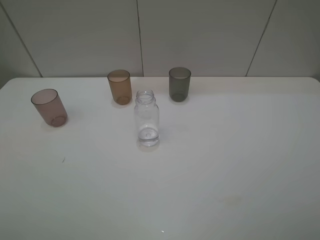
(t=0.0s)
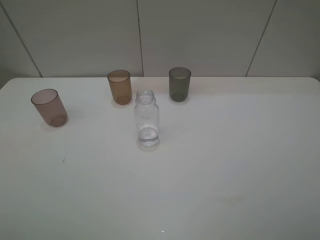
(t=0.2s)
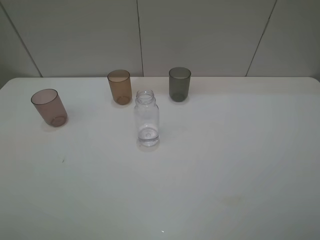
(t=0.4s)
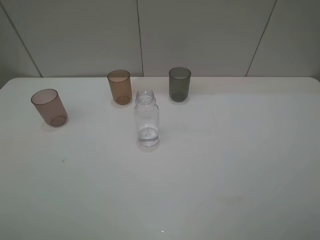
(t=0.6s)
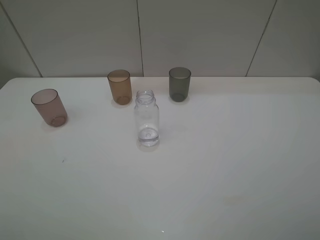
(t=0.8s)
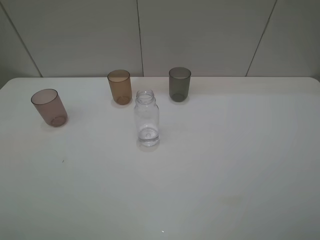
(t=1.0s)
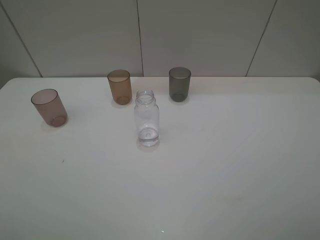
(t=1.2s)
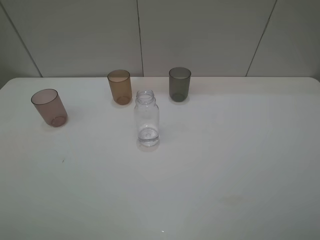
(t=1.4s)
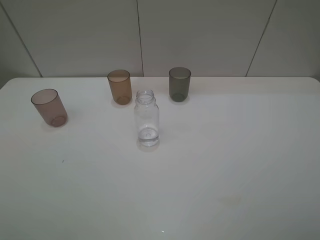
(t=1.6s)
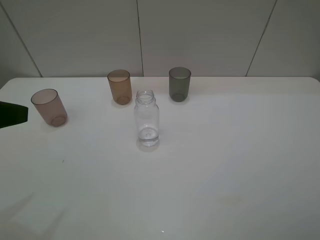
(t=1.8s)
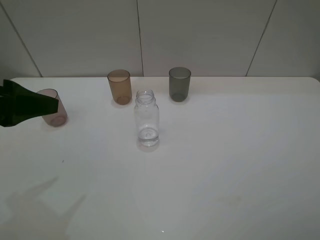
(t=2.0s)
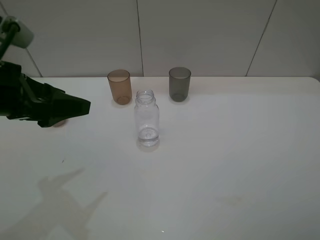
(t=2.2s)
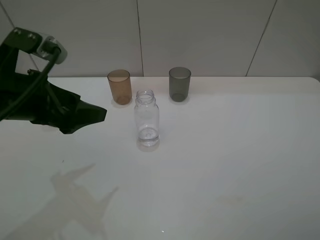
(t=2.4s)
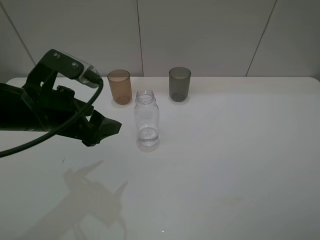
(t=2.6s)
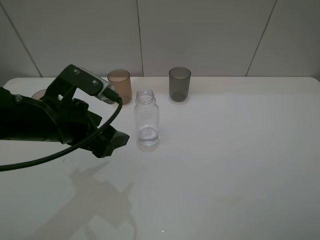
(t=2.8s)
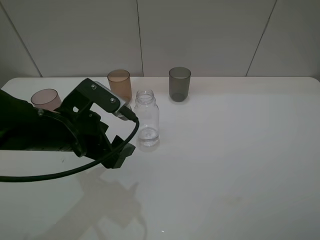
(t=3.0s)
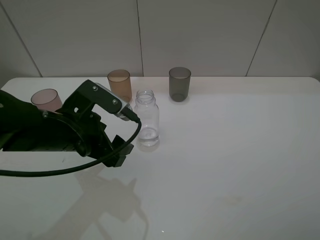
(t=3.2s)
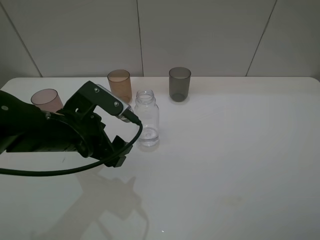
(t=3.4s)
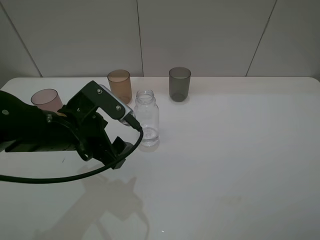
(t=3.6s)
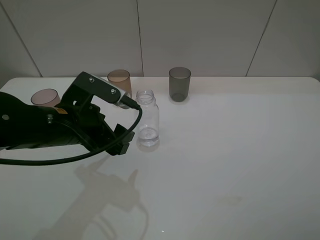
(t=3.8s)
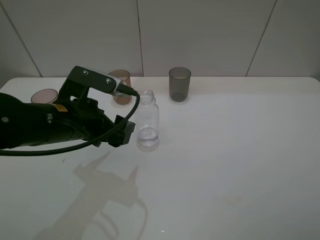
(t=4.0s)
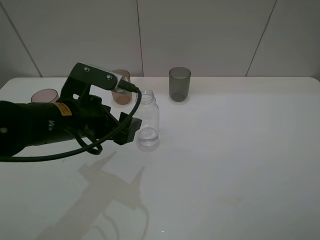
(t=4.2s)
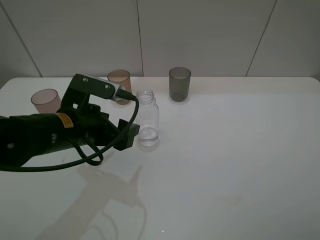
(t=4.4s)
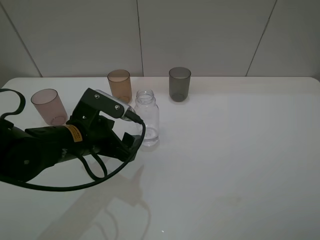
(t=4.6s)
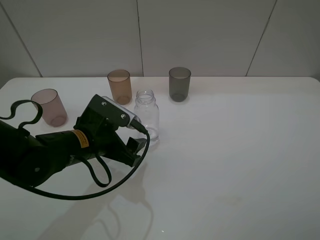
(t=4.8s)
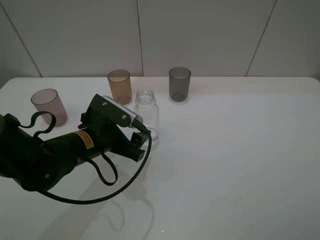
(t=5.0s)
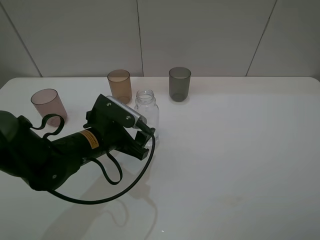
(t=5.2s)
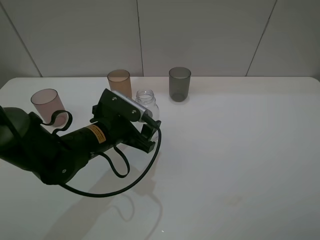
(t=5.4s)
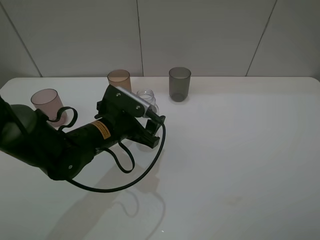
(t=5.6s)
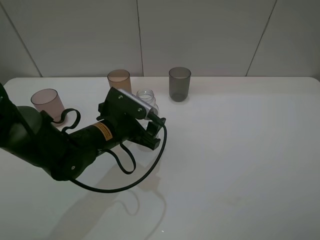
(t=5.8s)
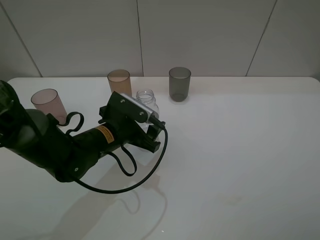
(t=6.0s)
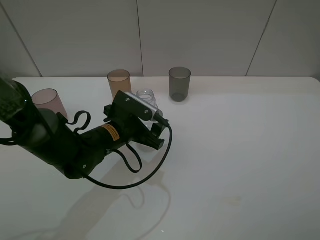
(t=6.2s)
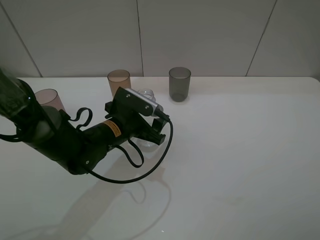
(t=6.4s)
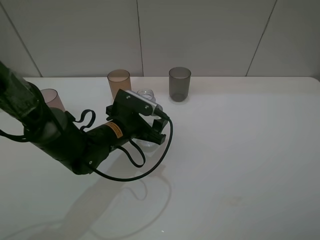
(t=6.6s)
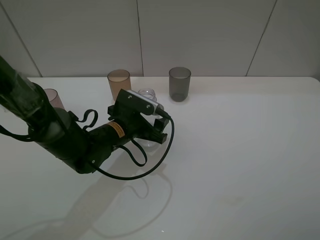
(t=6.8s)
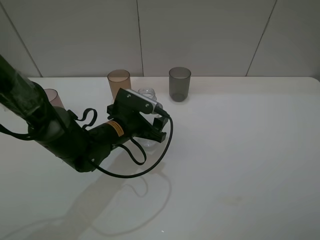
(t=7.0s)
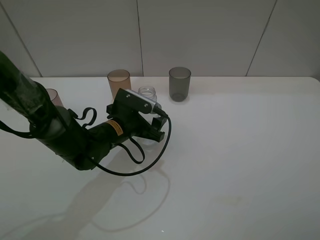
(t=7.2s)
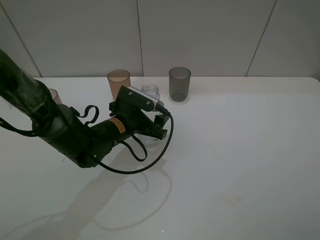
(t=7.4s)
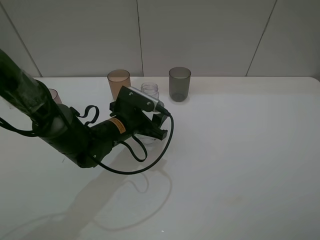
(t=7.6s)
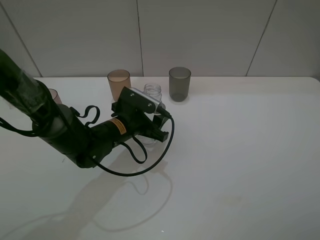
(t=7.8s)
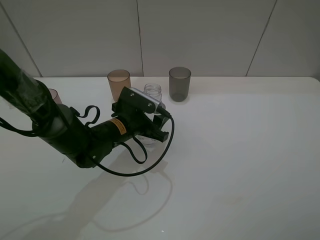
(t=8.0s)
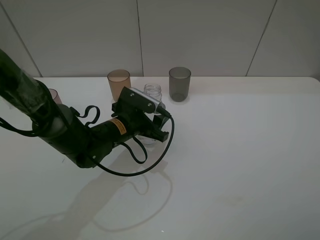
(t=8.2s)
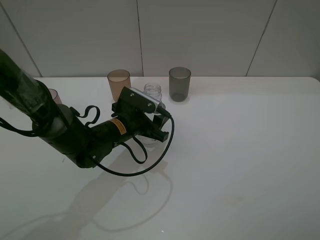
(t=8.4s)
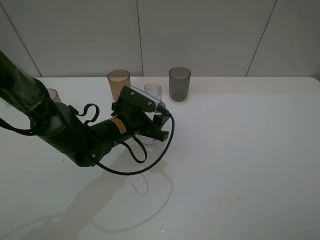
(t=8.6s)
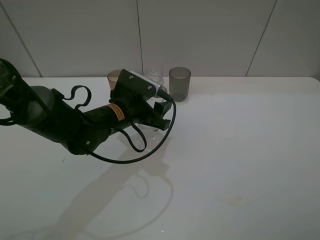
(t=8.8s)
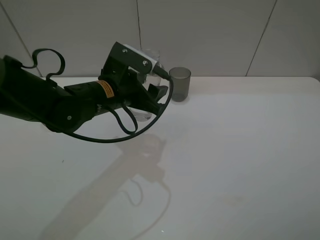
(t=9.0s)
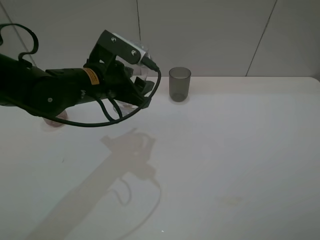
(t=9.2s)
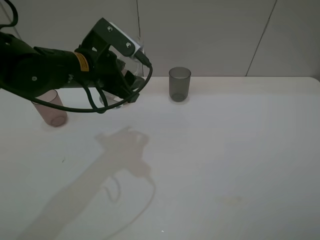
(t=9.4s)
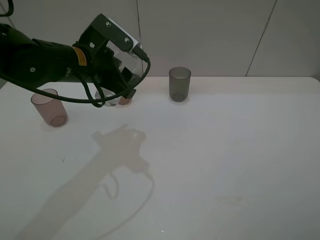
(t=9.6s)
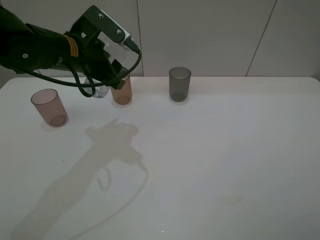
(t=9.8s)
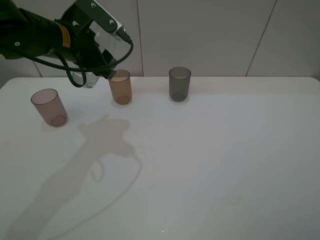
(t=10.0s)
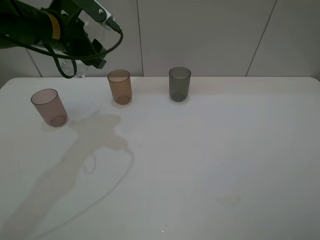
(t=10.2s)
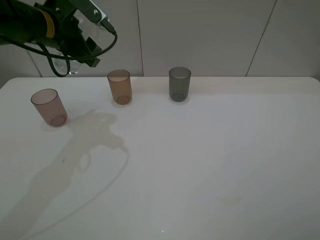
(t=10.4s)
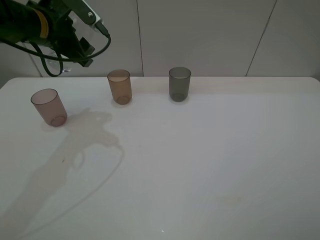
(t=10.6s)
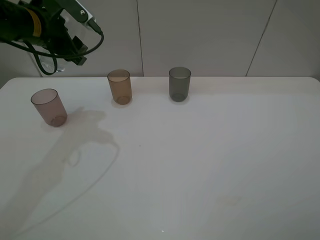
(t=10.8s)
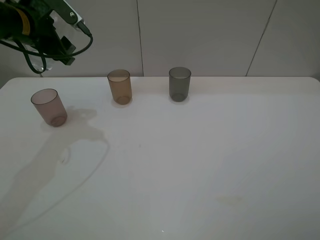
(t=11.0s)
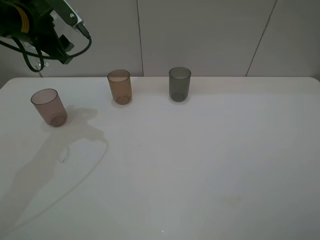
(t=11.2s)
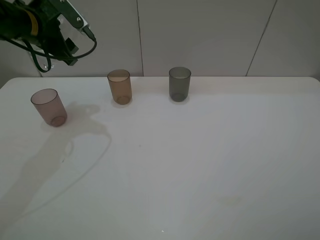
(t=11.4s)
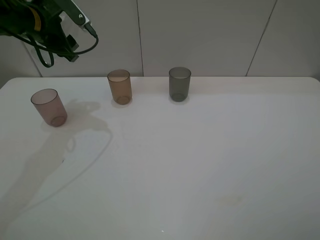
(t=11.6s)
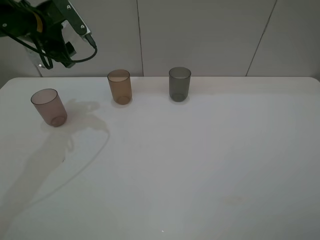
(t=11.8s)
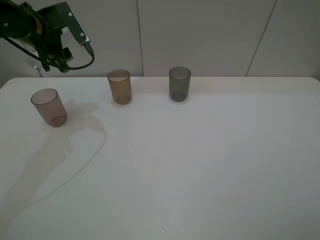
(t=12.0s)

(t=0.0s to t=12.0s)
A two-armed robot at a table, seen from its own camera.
Task of the whole recording: pick up the bottle filled with water and pour water into the middle cup of the three cups.
Step, t=0.0s - t=6.8s: Grasp the transparent bottle with the left gripper.
t=1.6s - t=3.0s: The left gripper travels to the right, forward and downward by roughly 25 cm.
t=3.0s - t=4.4s: There are only small adjustments of the grippers.
t=4.4s - t=6.0s: The left gripper shifts roughly 5 cm downward.
t=6.0s - t=7.6s: The left gripper closes up.
t=7.6s - t=9.0s: The left gripper is displaced upward by some 10 cm.
t=9.0s - t=10.4s: The left gripper is displaced to the left, upward and forward by approximately 15 cm.
t=10.4s - t=12.0s: The left gripper moves to the left, roughly 5 cm.

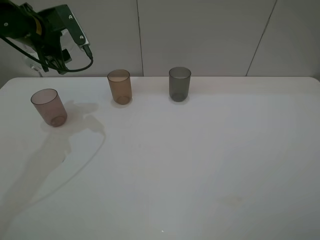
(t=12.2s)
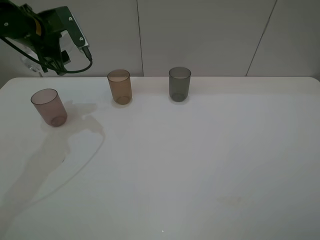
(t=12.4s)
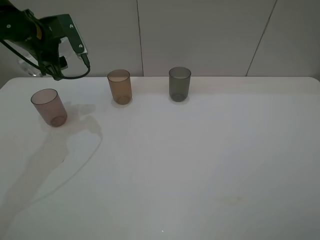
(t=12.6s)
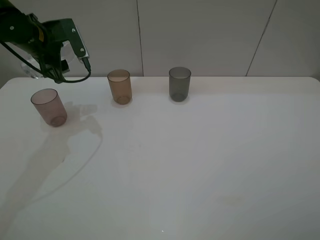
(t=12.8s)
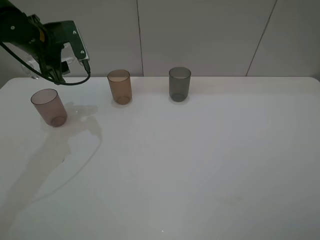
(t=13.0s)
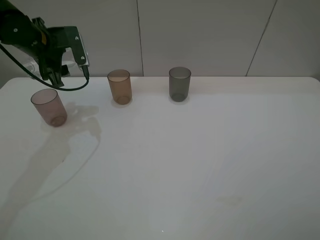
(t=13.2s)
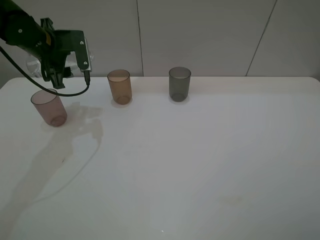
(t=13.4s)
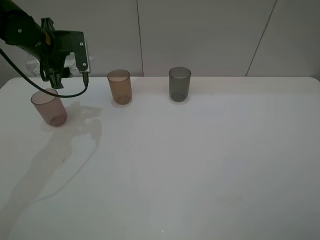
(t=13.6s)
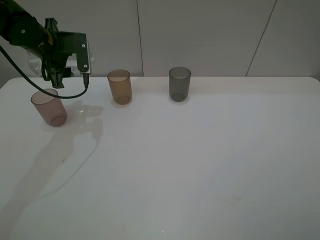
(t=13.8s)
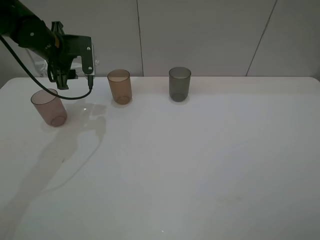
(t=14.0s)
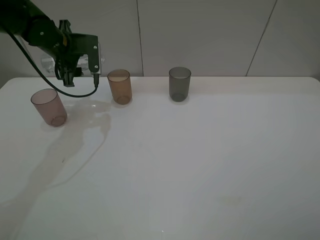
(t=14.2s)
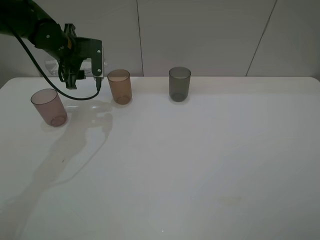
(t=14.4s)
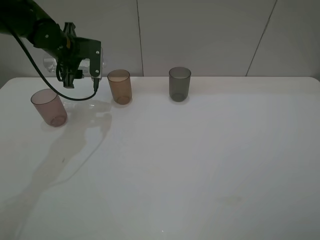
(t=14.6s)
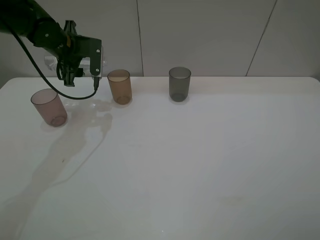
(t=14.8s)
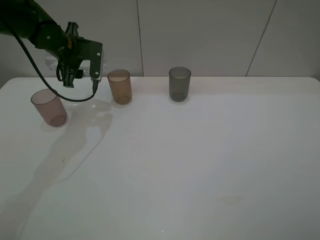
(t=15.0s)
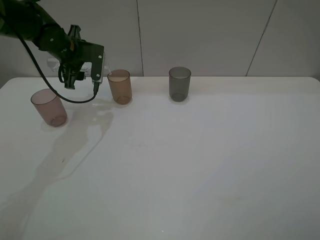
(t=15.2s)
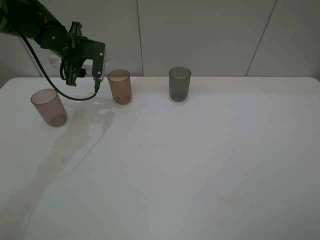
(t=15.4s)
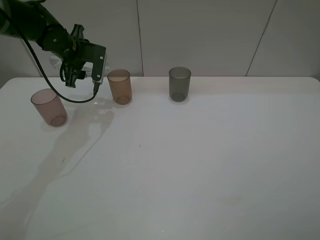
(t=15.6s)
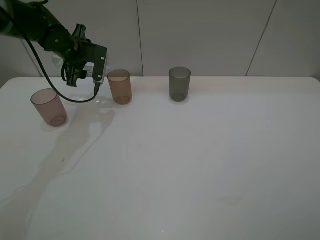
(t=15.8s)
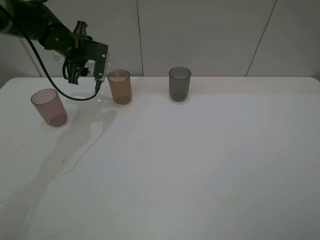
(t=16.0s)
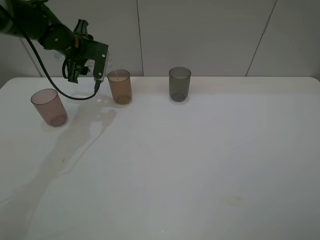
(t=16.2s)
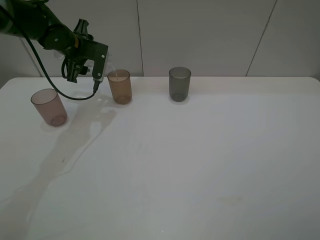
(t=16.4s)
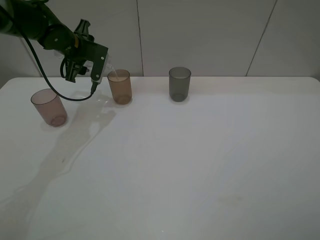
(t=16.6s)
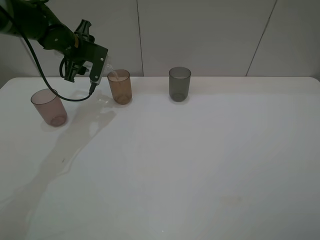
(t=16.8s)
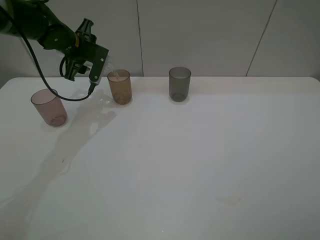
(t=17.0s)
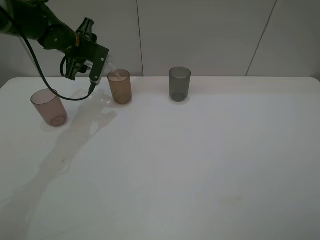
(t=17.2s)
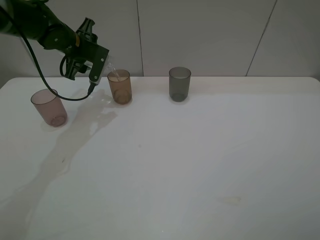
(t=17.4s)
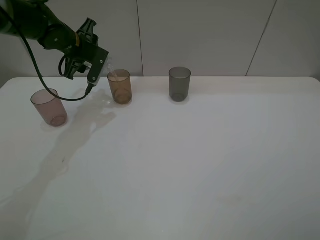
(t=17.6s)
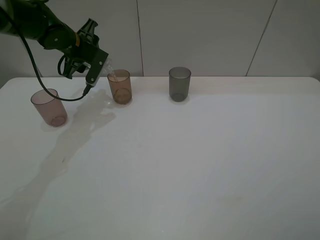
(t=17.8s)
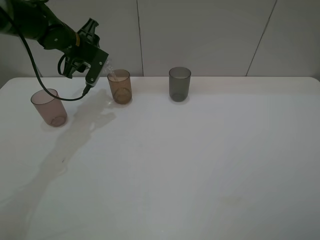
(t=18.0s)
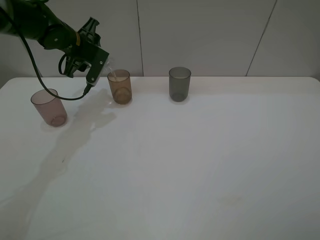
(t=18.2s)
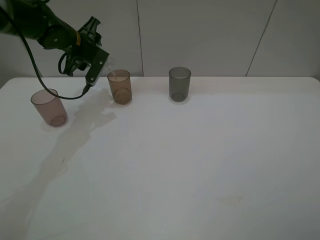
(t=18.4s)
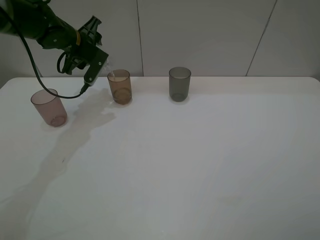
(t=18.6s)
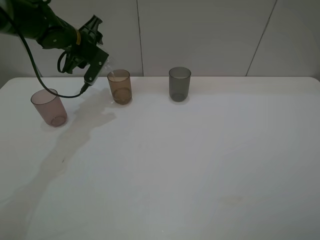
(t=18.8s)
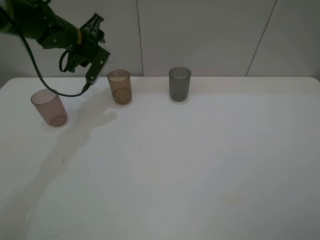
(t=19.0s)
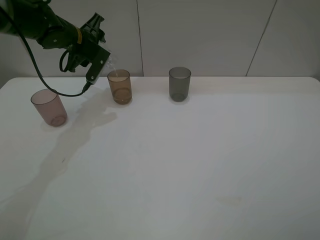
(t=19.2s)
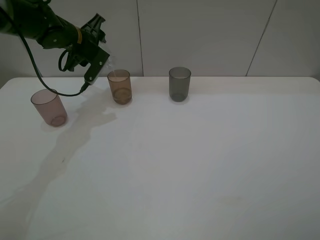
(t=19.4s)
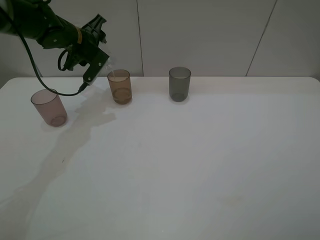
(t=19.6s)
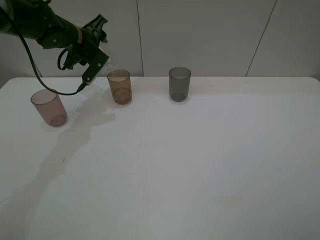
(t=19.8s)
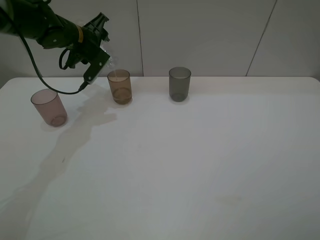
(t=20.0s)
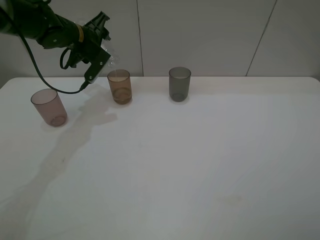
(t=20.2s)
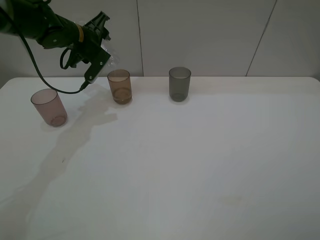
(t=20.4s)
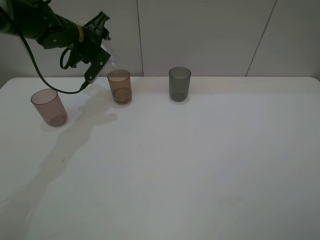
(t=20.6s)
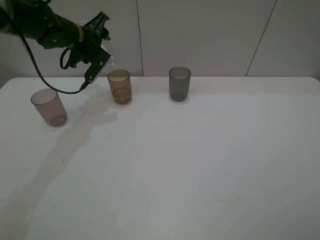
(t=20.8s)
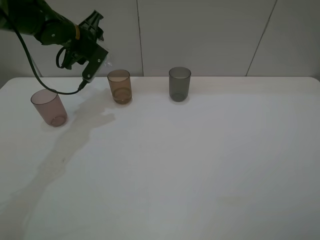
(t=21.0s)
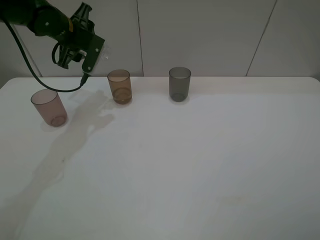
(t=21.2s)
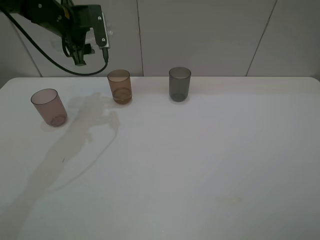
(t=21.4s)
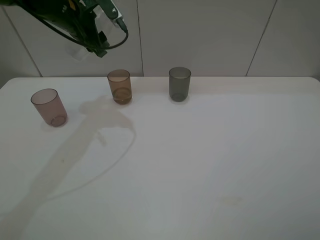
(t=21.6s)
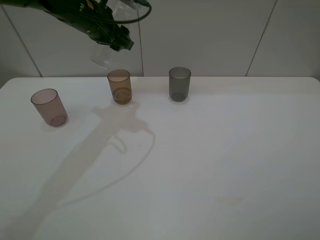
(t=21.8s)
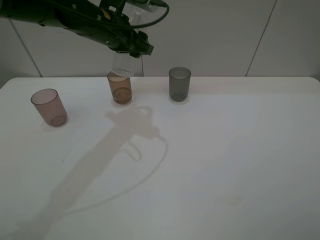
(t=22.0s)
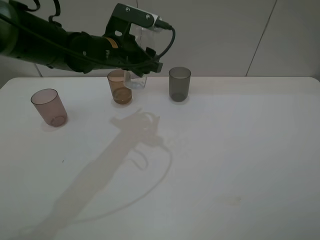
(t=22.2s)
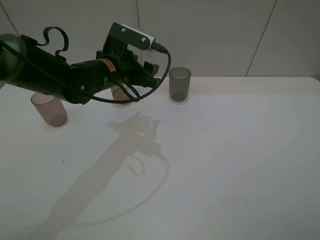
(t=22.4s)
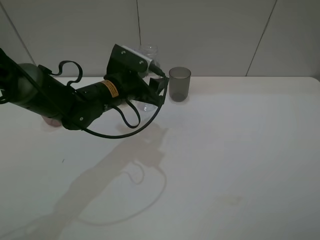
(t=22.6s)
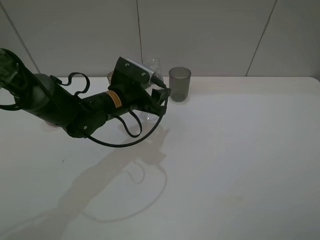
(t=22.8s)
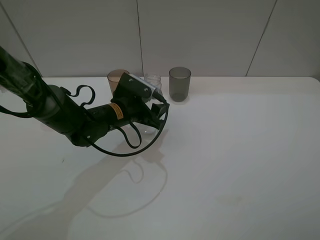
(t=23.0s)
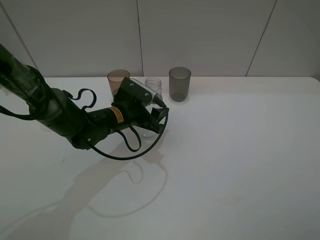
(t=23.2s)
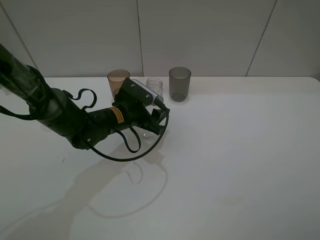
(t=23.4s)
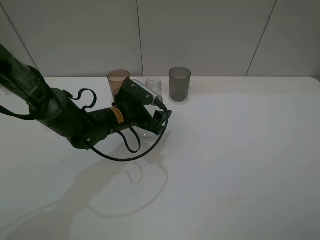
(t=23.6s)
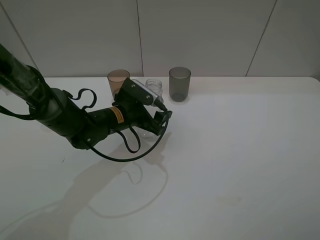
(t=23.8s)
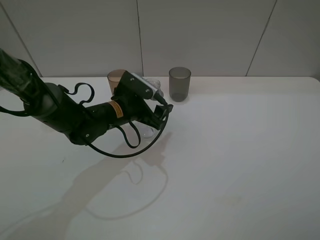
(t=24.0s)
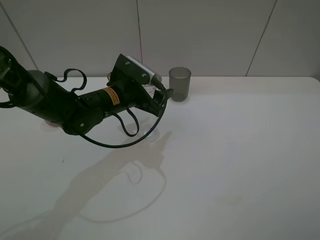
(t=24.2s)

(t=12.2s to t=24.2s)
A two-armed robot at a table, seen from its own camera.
Task of the whole recording: pick up the bottle filled with water and pour water into the middle cup of the three cups.
Step, t=12.2s - t=14.8s: Pour water from transparent bottle to brown cup with the left gripper.
t=13.8s - t=15.2s: The grippers stay close to where they were, moving slightly.
t=15.2s - t=16.6s: There are only small adjustments of the grippers.
t=16.6s - t=18.2s: The grippers make only small movements.
t=18.2s - t=21.2s: The grippers make only small movements.
t=21.2s - t=22.6s: The left gripper travels backward, to the right and downward by about 20 cm.
t=22.6s - t=24.2s: The left gripper opens up.
